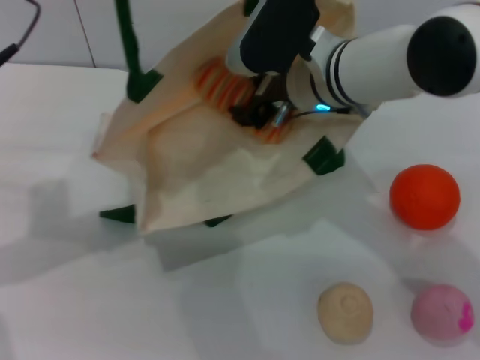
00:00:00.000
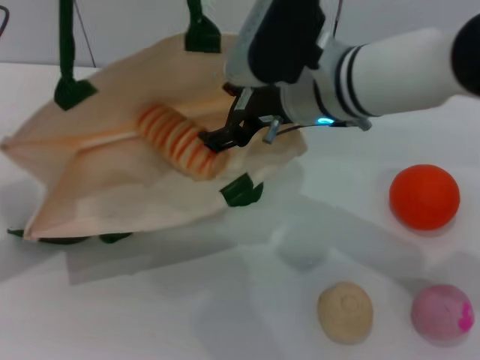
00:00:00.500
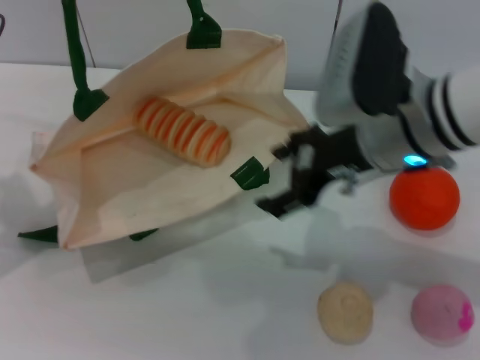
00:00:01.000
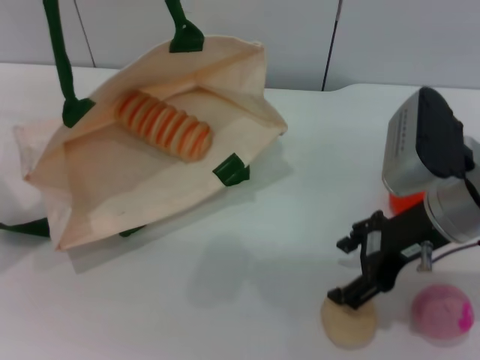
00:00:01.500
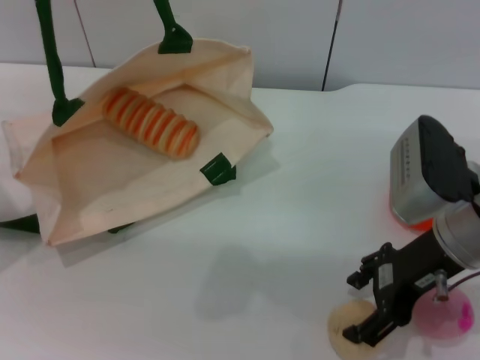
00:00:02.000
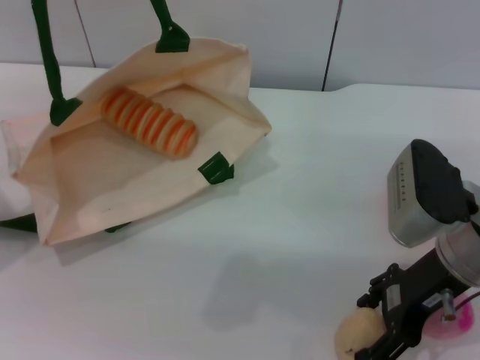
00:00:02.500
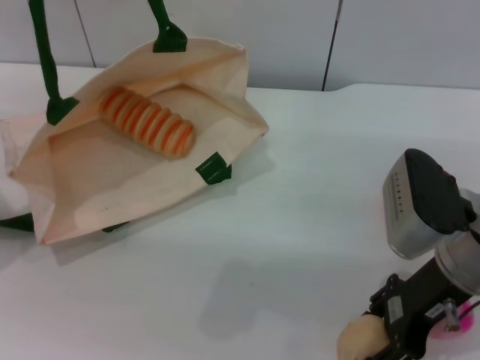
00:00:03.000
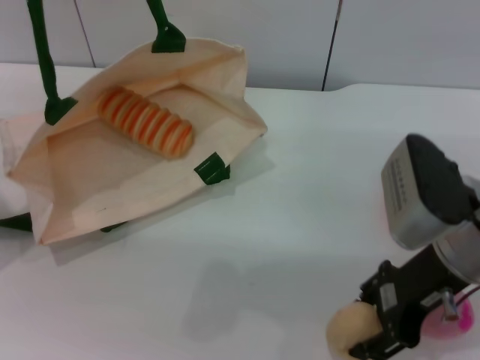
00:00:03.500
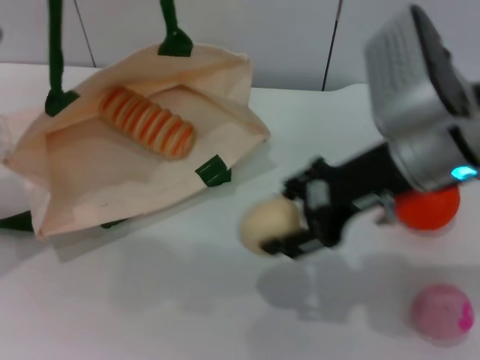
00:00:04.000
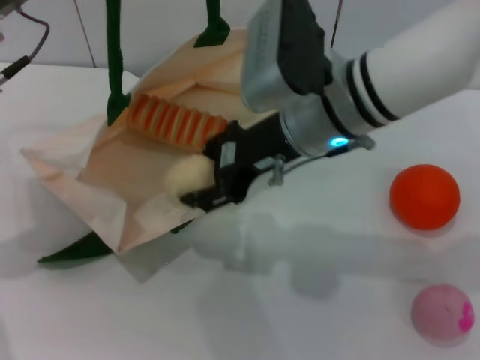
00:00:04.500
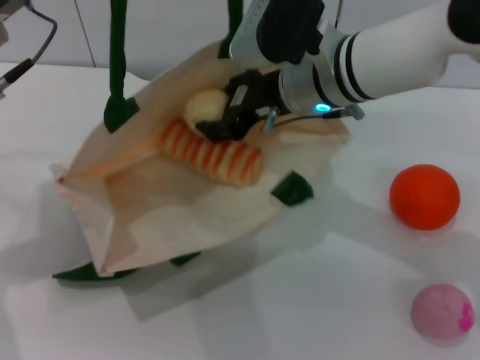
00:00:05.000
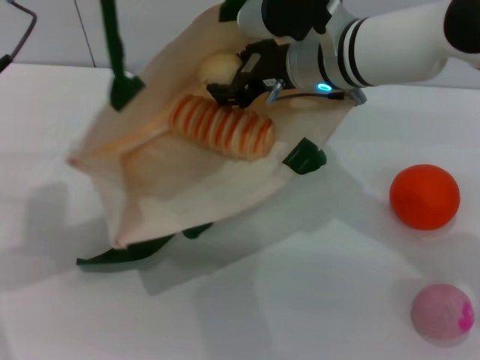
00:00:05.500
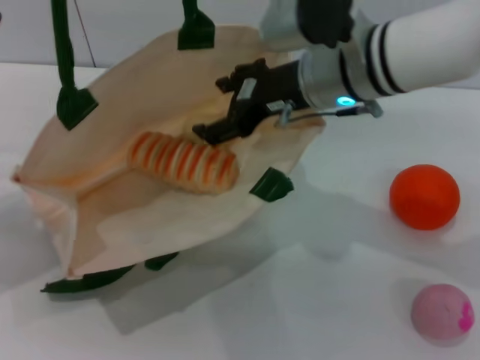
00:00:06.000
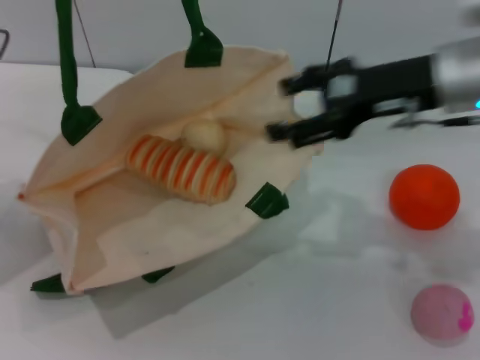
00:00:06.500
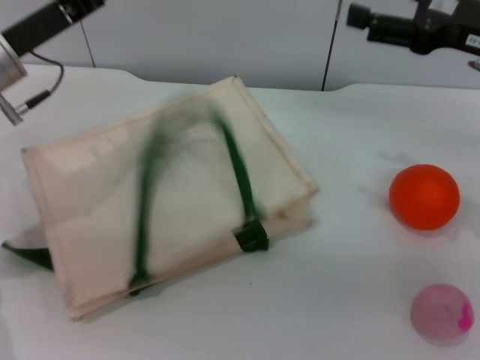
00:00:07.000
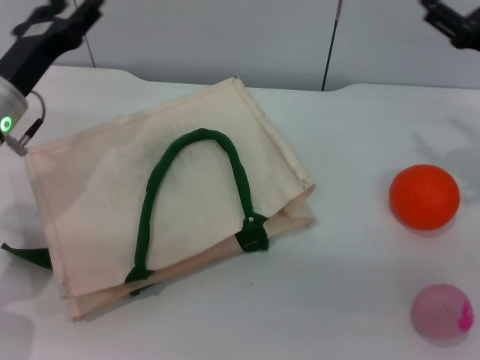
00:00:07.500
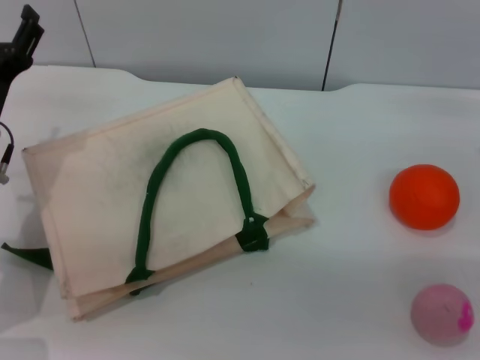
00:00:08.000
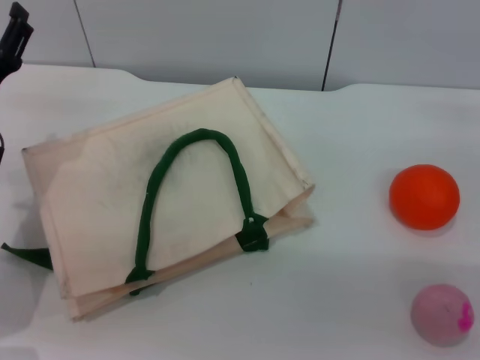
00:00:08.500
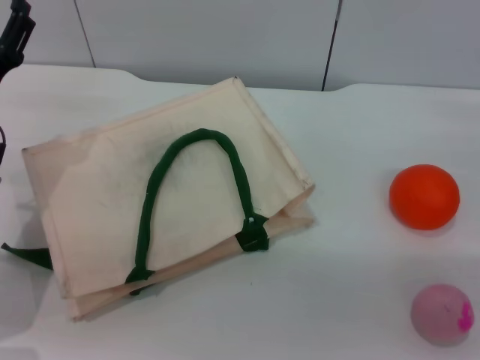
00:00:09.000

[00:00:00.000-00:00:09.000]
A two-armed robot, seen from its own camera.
Task of the whole recording: pick up the bread and egg yolk pastry from the table and place it in the white handbag.
Step, 00:00:01.000 to 00:00:03.500: Pick up the egg yolk pastry with the right gripper.
Step, 00:00:04.000 to 00:00:06.000: Place the egg yolk pastry into the woven bag with the right gripper.
Step, 00:00:06.500 to 00:00:07.000: Lower the woven bag with the left gripper to close it.
00:00:00.000 to 00:00:02.000: The right gripper goes approximately 15 cm to the right and backward, and opens its fingers; the left gripper heads to the left, covering some 5 cm.
00:00:02.000 to 00:00:04.500: The right gripper goes about 15 cm to the left, forward and upward, and closes up; the left gripper travels to the right by roughly 5 cm.
00:00:04.500 to 00:00:07.000: The right gripper shifts roughly 20 cm to the right, and opens up.
00:00:07.000 to 00:00:09.000: The right gripper heads downward and to the right, covering about 15 cm, while the left gripper shifts approximately 10 cm downward and backward, and opens up.
